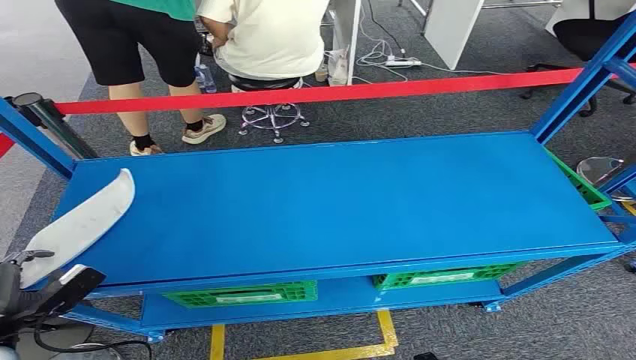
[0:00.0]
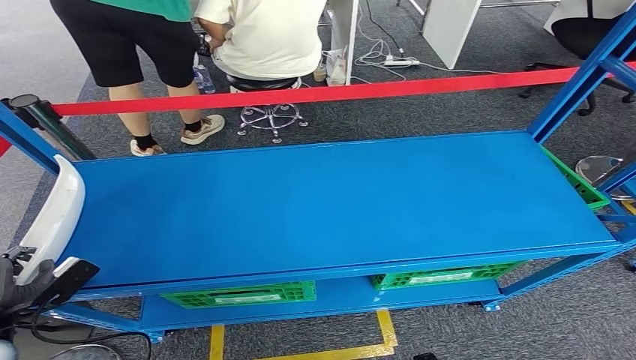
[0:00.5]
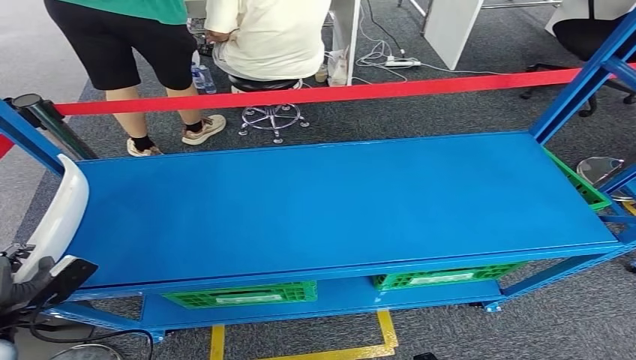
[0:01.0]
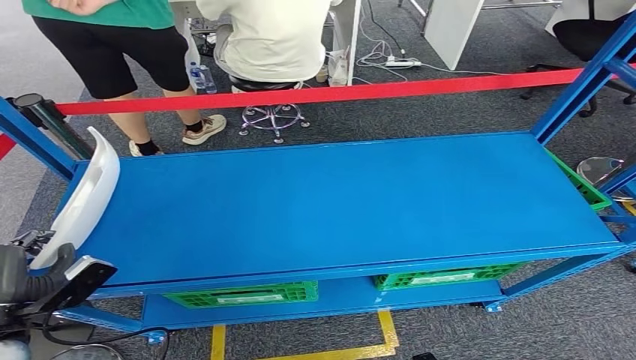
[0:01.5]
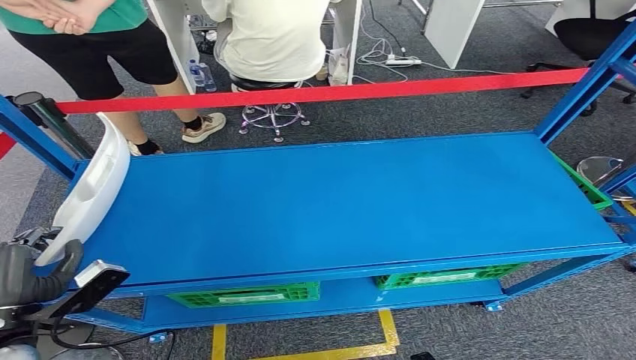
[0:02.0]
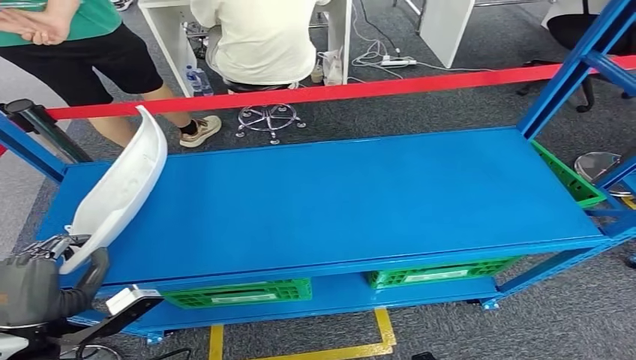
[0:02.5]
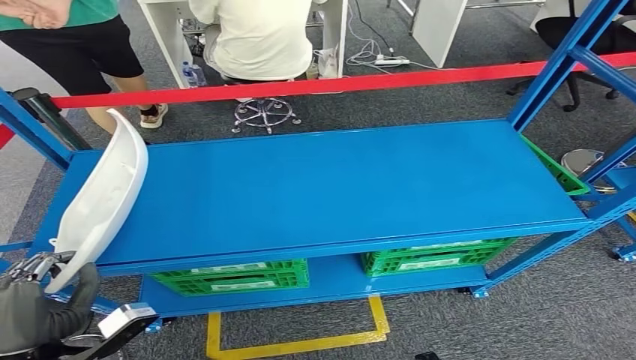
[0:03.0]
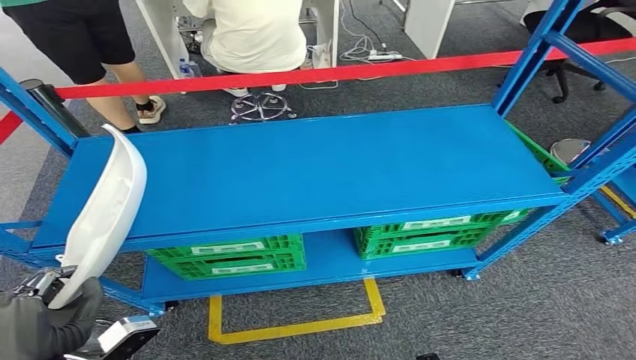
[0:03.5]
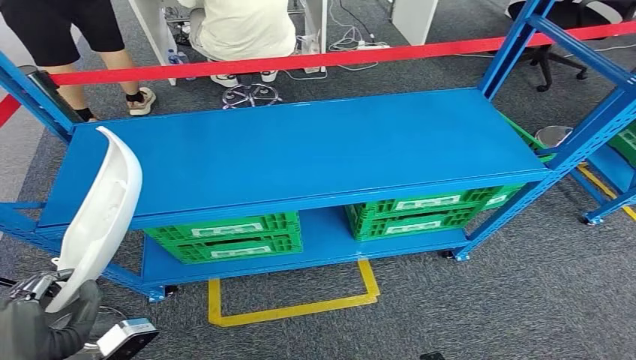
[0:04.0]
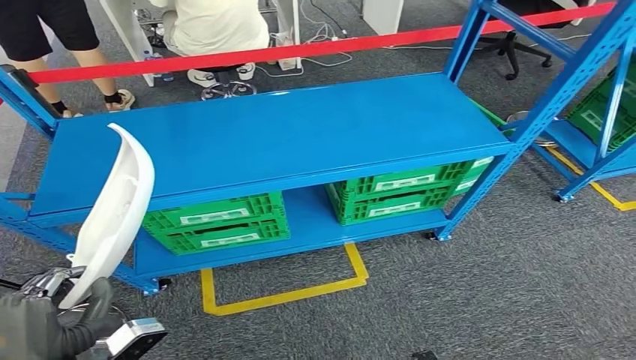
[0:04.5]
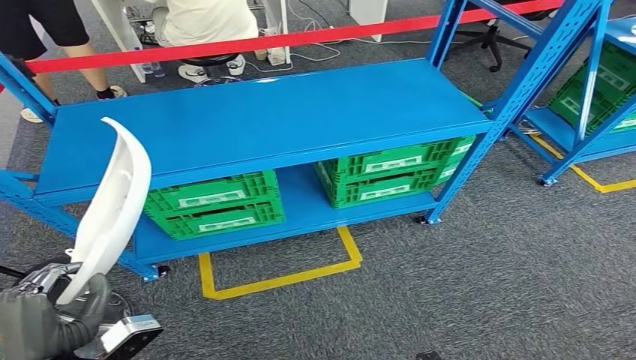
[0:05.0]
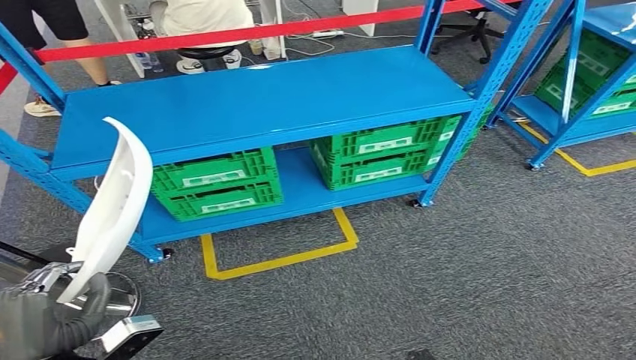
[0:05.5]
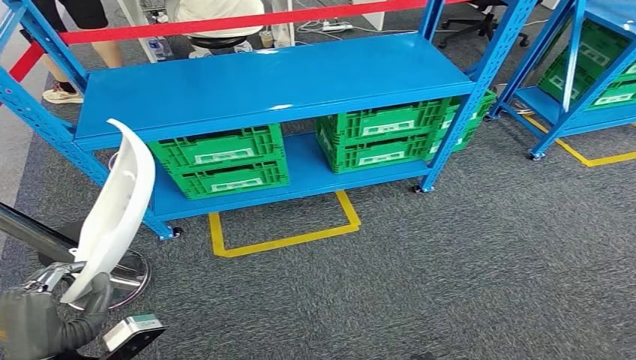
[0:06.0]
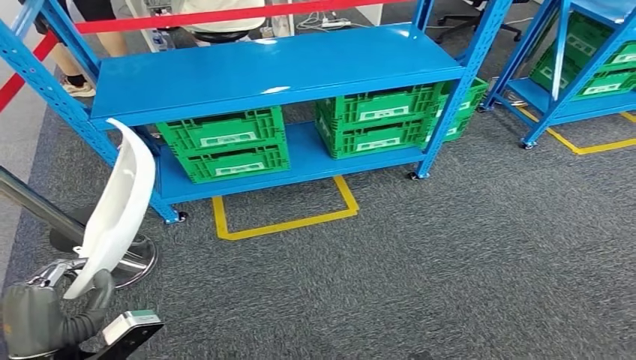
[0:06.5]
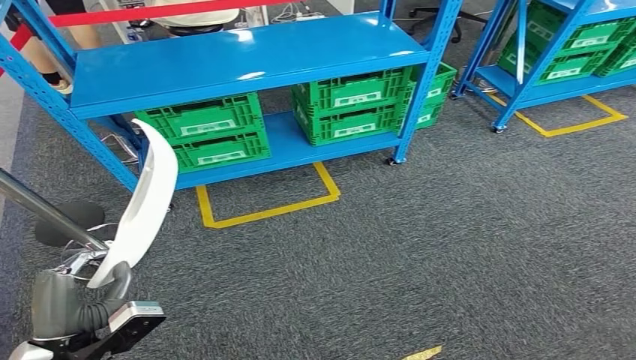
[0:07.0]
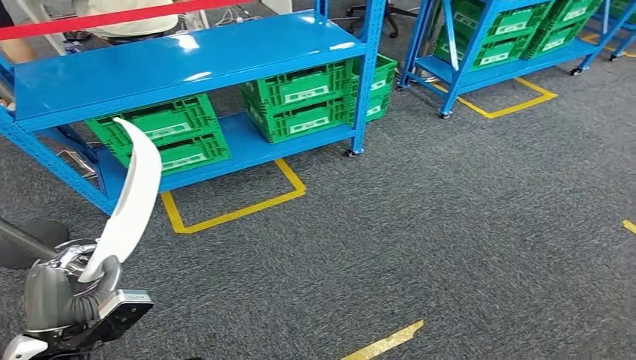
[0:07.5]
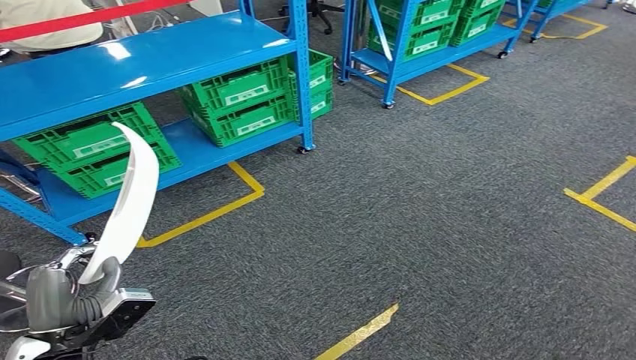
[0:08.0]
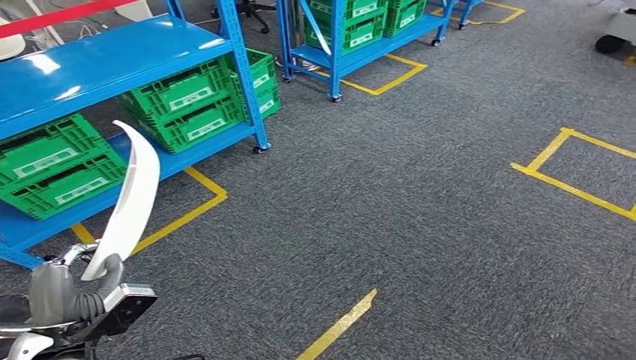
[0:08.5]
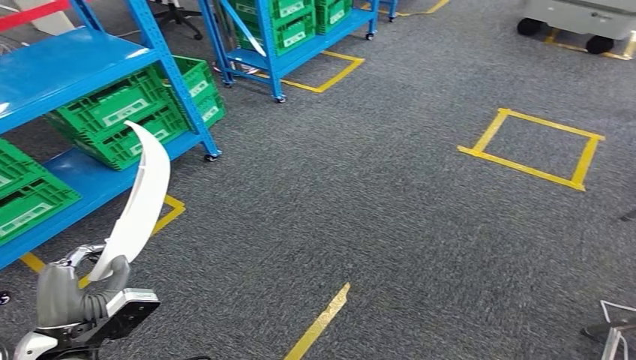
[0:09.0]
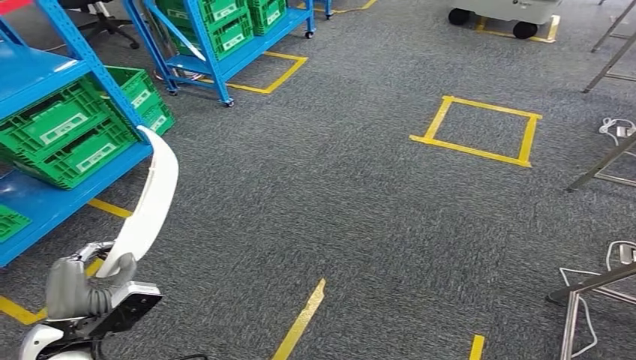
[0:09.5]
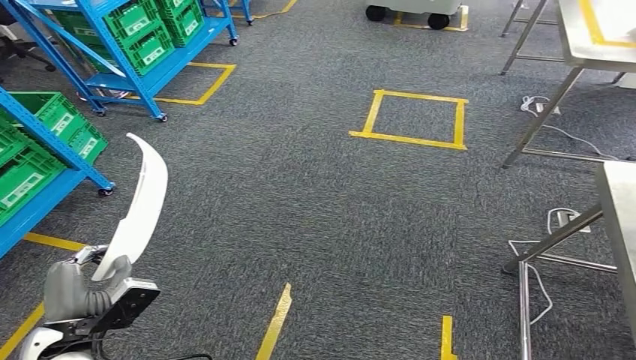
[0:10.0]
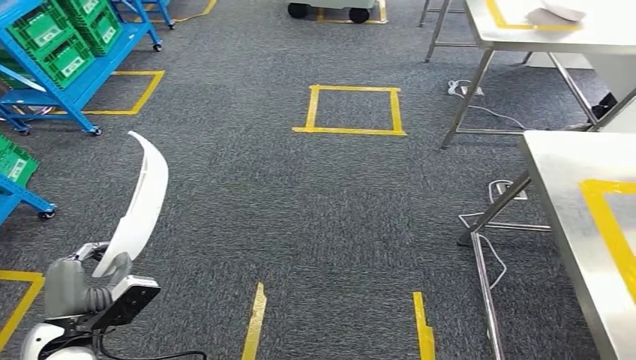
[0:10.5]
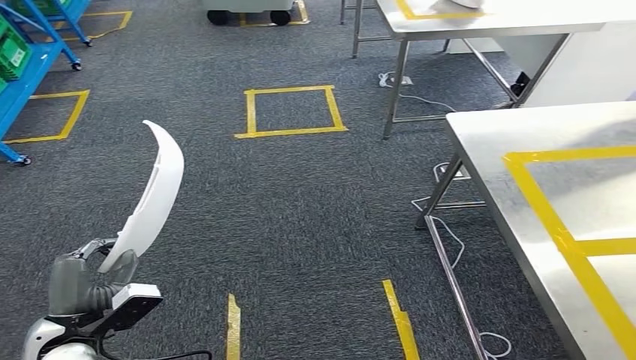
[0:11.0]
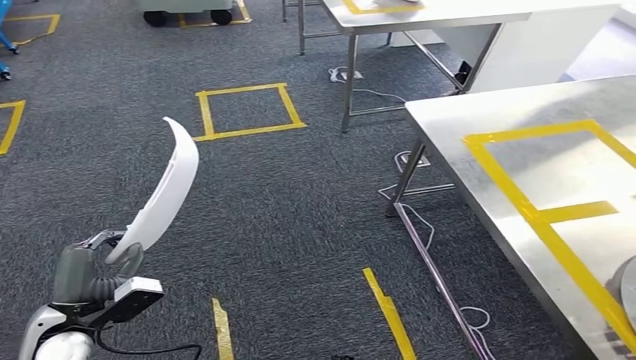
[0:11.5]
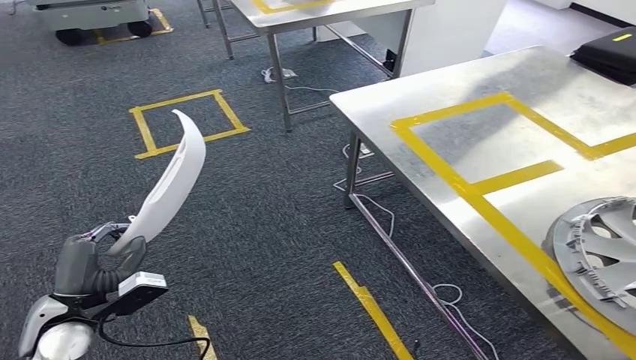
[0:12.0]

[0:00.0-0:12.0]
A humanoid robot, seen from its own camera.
Step, 0:00.0 to 0:04.0: Pick up the small component from the shelf.

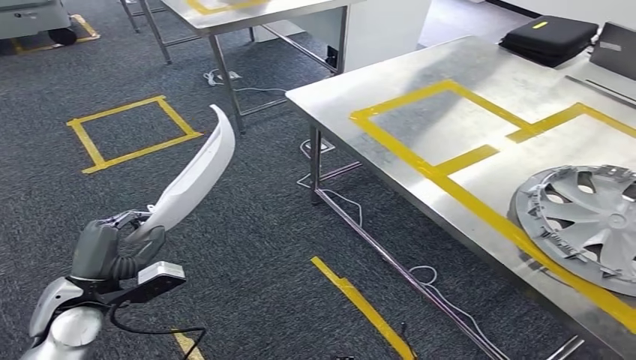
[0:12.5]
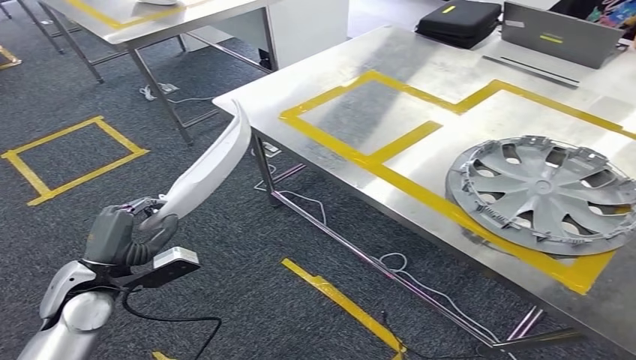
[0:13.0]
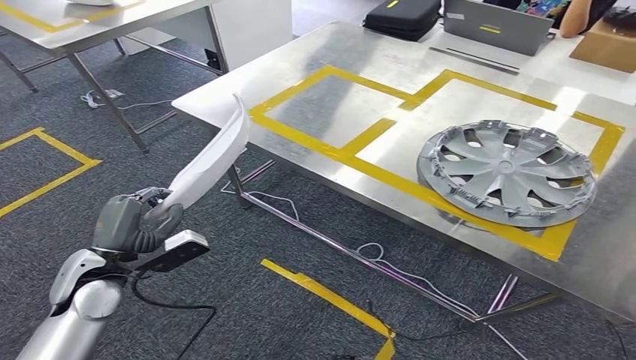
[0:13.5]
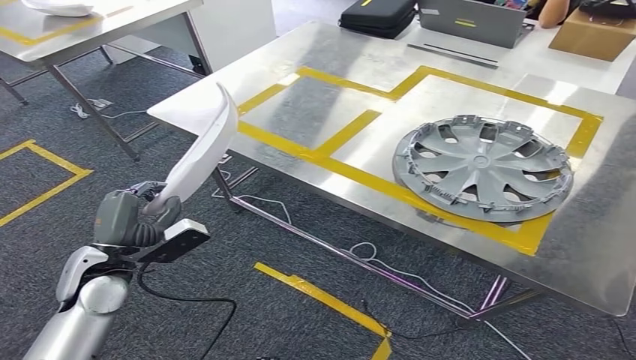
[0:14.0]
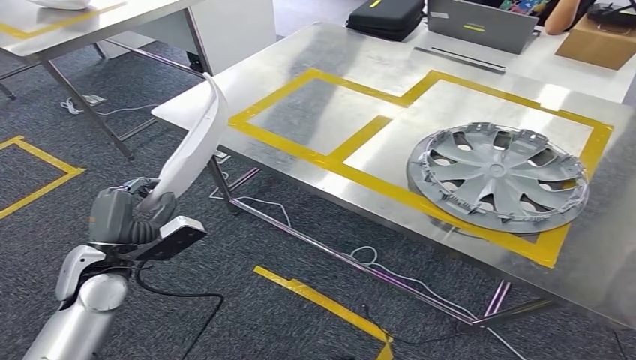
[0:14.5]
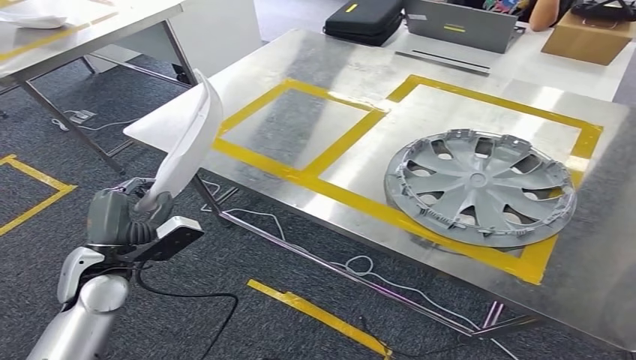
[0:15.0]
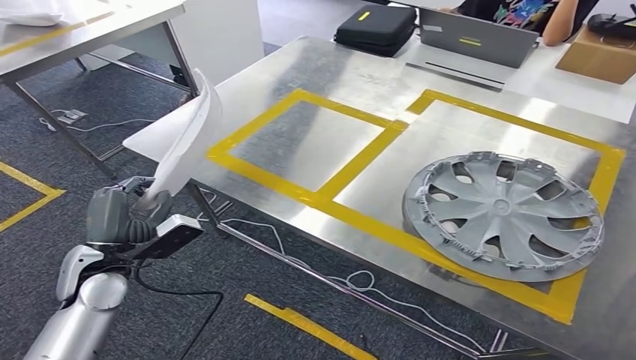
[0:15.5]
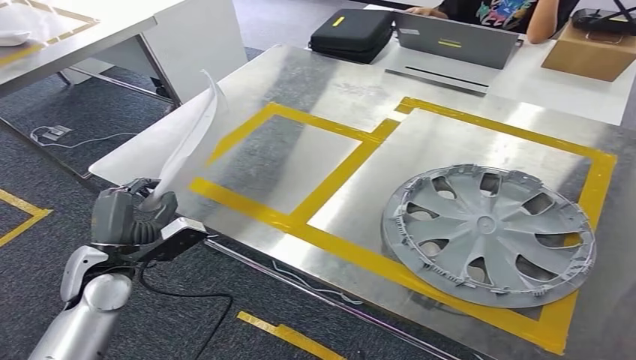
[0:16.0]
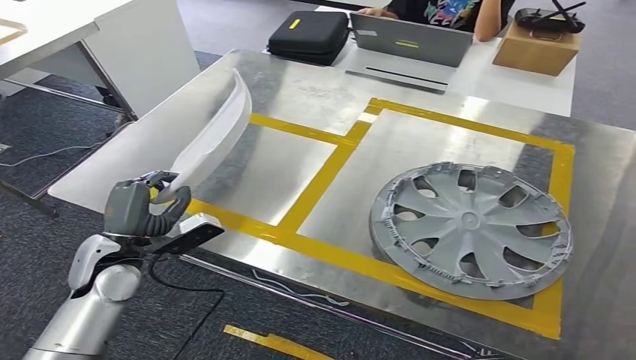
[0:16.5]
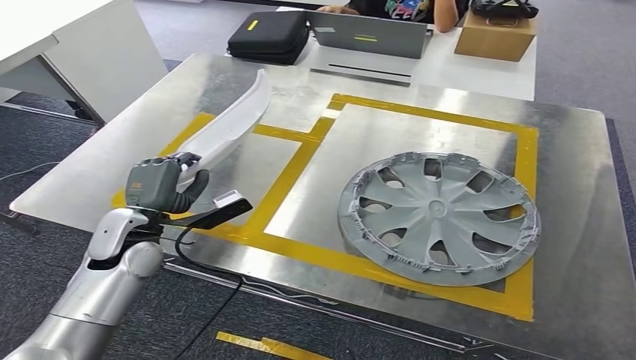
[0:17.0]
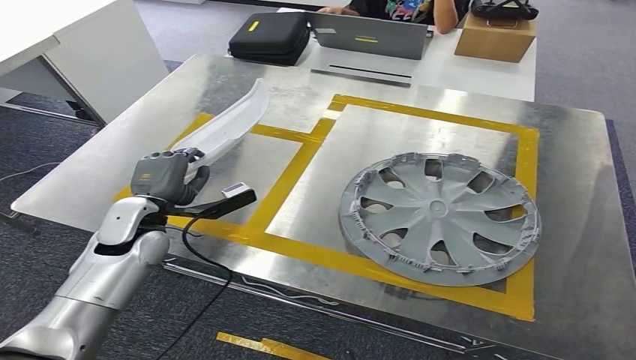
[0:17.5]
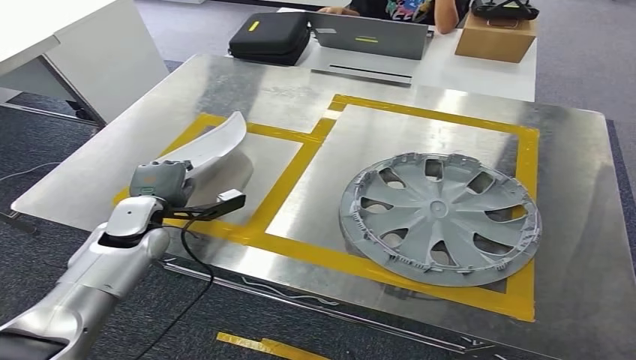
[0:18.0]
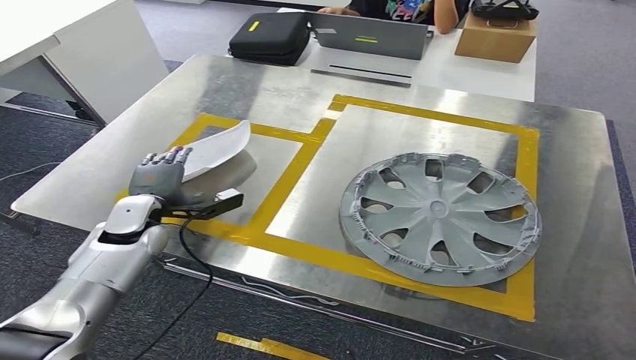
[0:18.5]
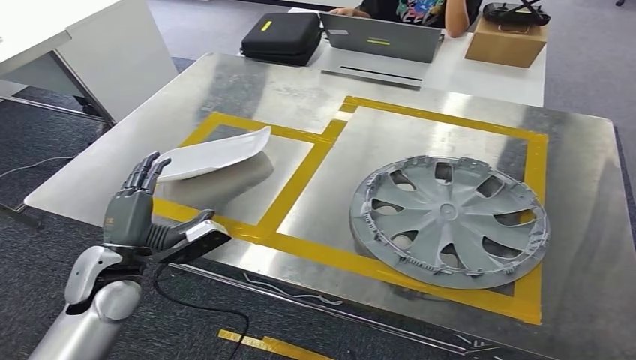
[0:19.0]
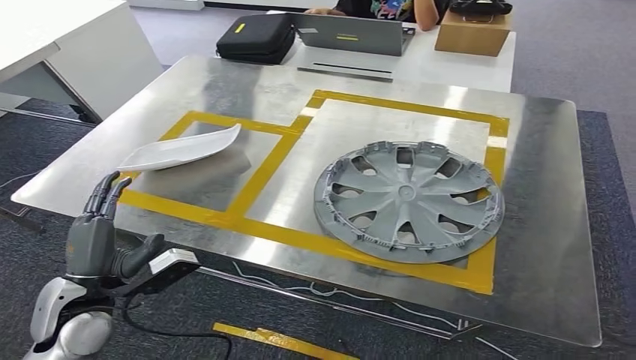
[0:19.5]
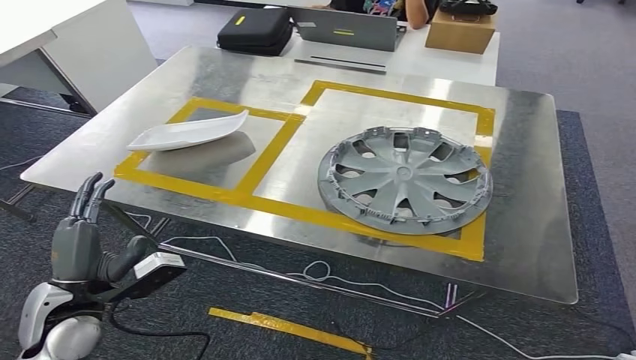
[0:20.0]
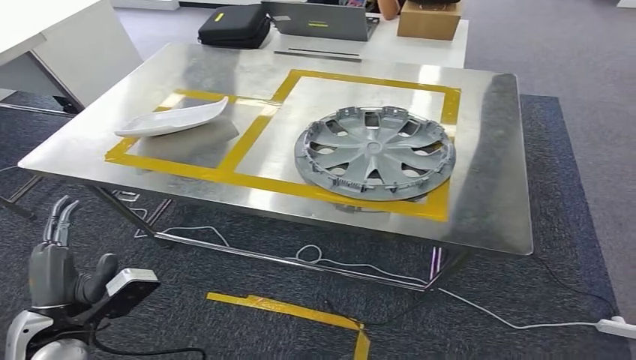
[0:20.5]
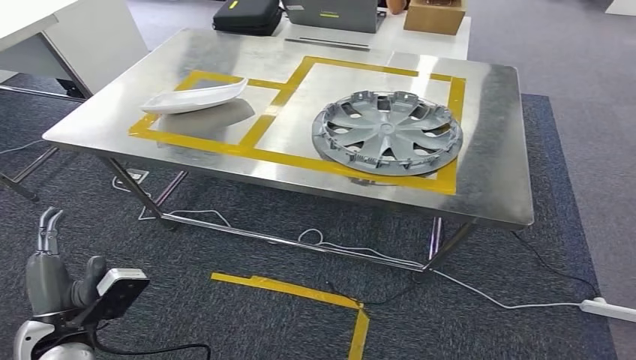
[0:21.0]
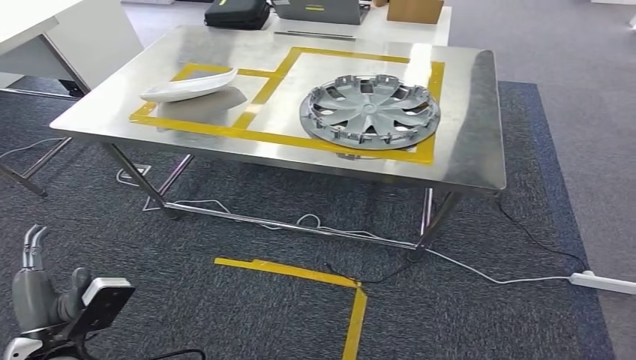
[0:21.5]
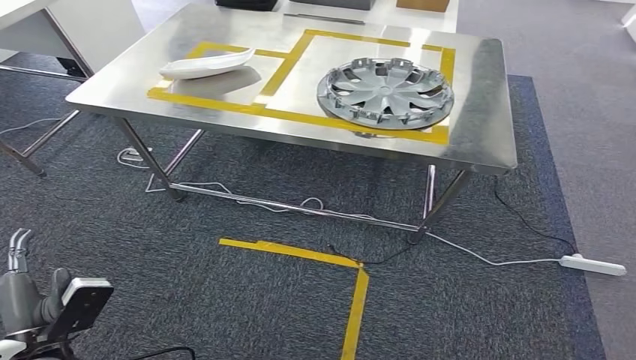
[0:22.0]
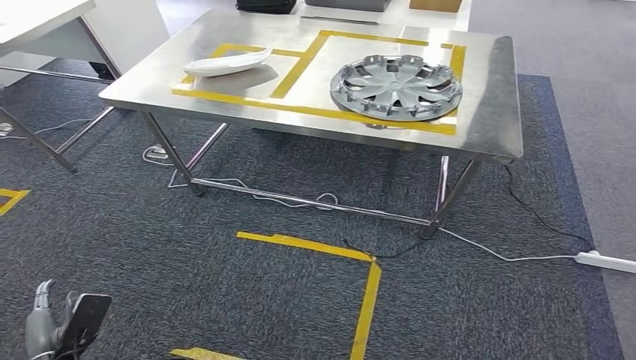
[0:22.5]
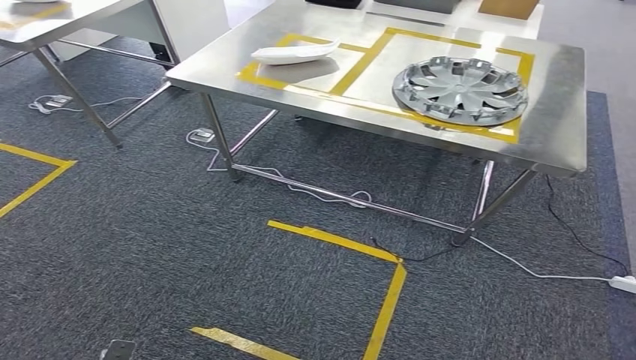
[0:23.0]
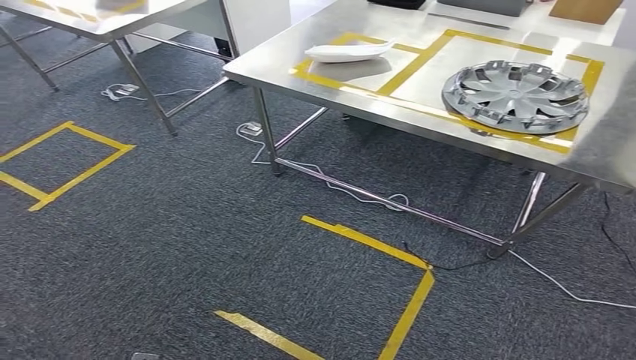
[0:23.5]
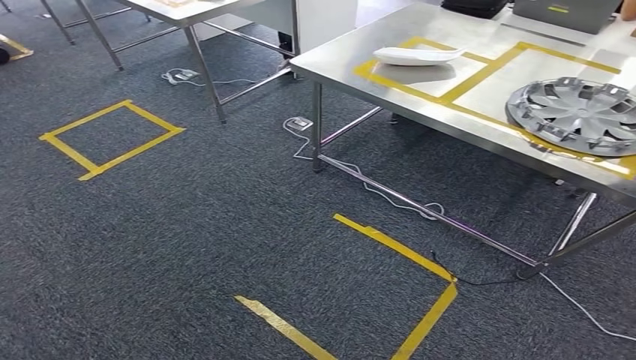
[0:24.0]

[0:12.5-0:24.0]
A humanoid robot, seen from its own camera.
Step, 0:12.5 to 0:15.0: Move the small component to the workbench.
Step, 0:15.5 to 0:21.0: Insert the small component into the corresponding slot on the workbench.
